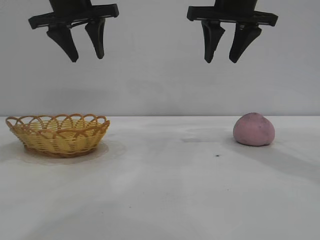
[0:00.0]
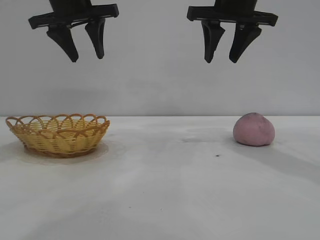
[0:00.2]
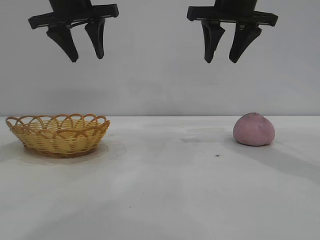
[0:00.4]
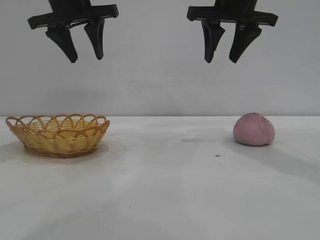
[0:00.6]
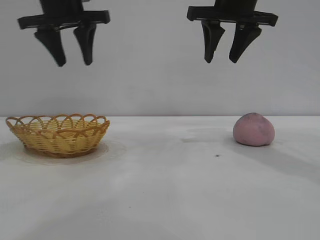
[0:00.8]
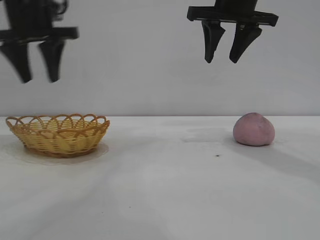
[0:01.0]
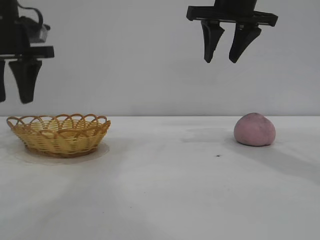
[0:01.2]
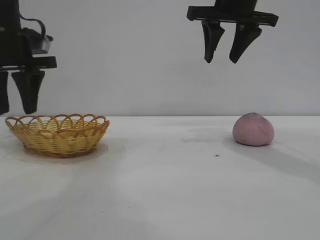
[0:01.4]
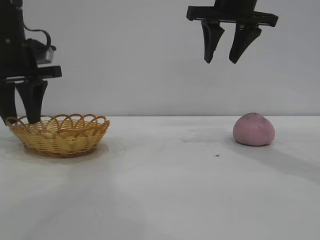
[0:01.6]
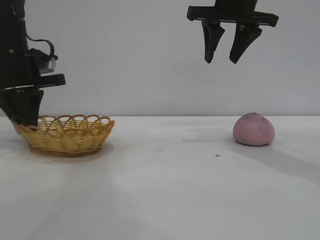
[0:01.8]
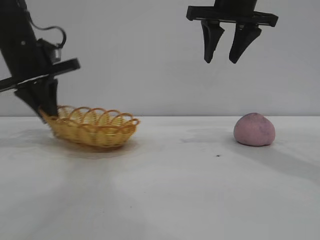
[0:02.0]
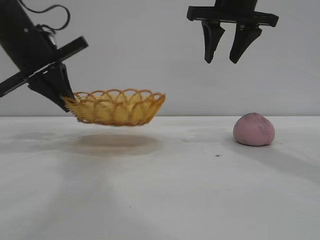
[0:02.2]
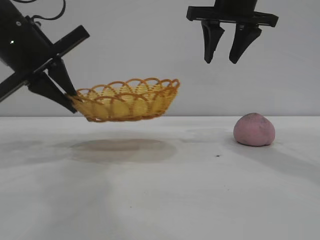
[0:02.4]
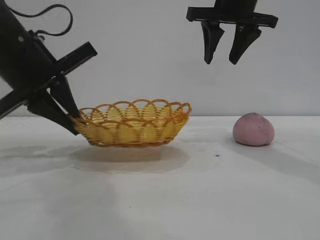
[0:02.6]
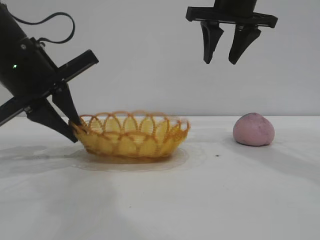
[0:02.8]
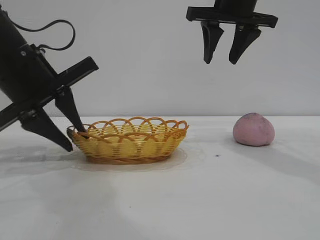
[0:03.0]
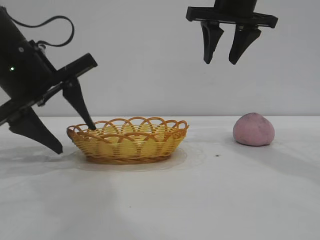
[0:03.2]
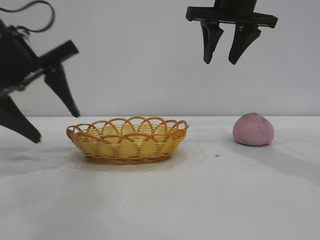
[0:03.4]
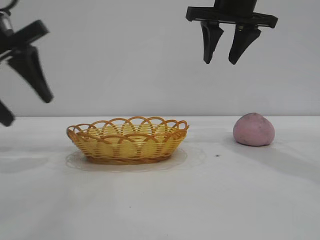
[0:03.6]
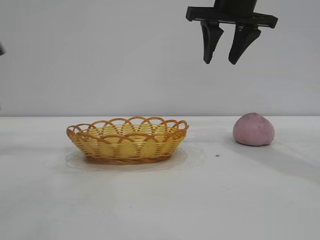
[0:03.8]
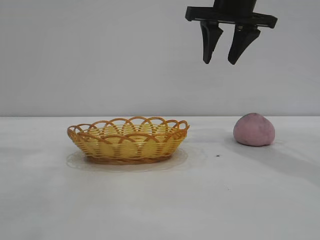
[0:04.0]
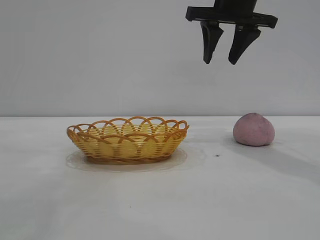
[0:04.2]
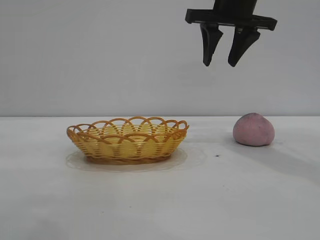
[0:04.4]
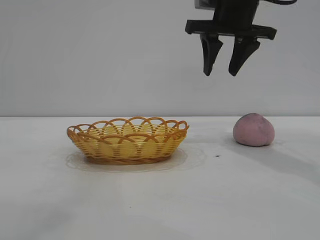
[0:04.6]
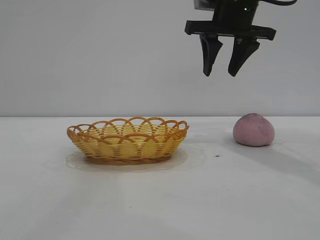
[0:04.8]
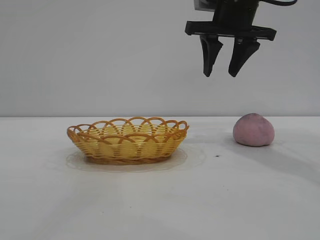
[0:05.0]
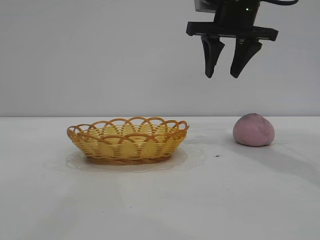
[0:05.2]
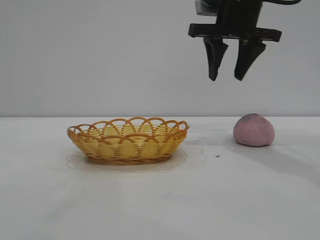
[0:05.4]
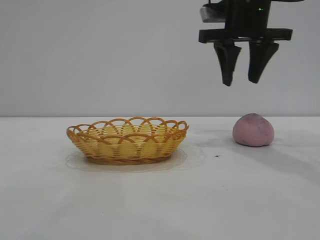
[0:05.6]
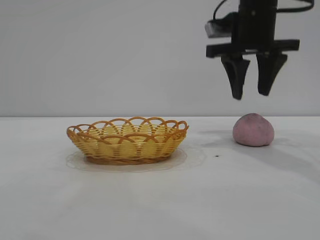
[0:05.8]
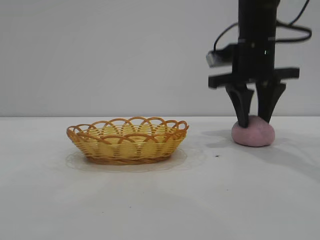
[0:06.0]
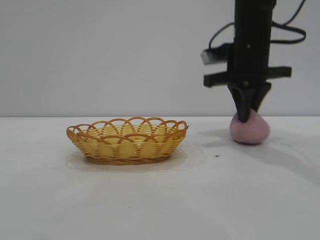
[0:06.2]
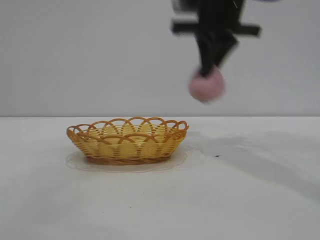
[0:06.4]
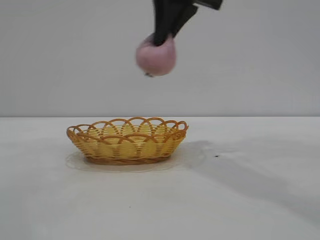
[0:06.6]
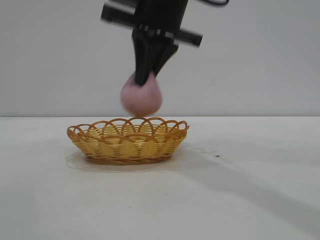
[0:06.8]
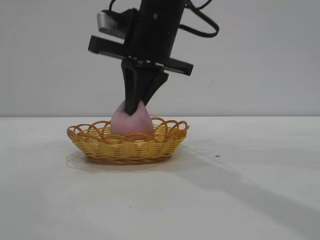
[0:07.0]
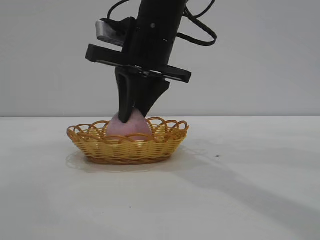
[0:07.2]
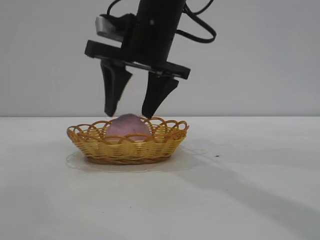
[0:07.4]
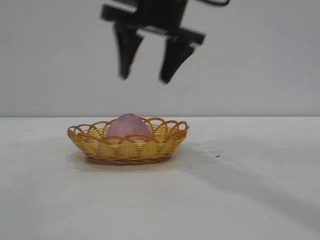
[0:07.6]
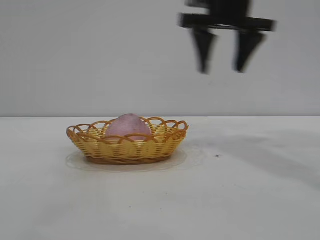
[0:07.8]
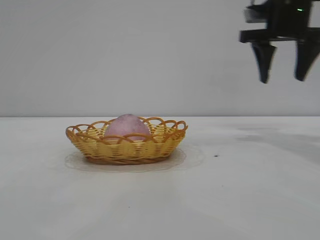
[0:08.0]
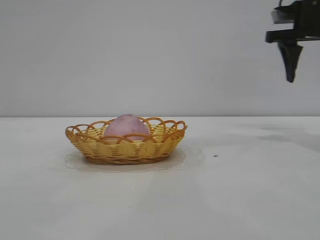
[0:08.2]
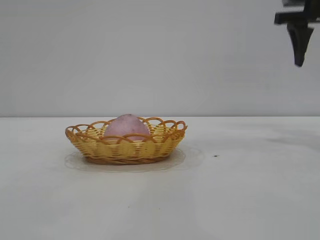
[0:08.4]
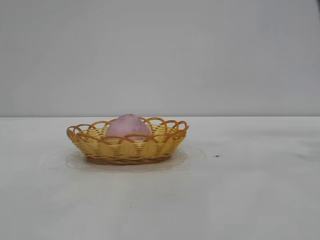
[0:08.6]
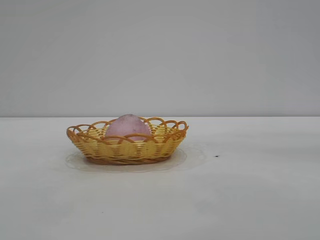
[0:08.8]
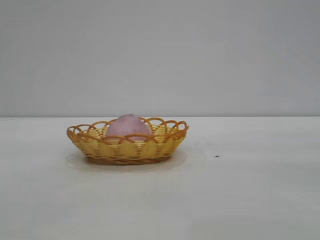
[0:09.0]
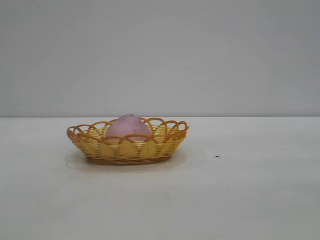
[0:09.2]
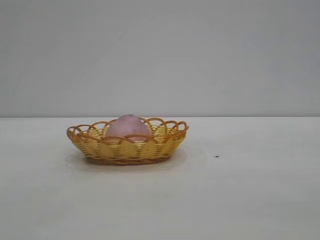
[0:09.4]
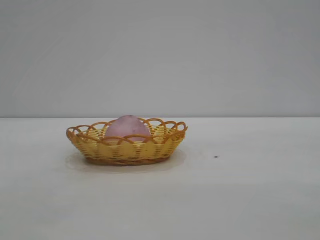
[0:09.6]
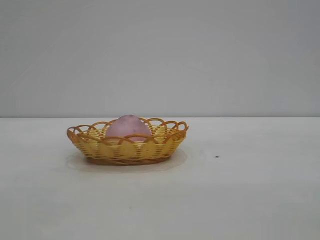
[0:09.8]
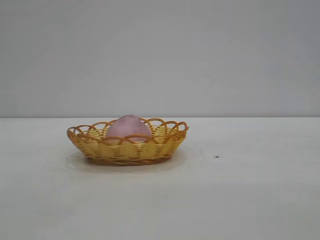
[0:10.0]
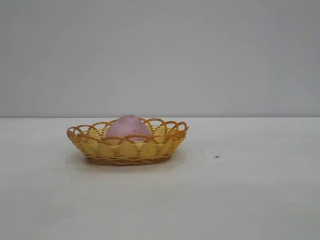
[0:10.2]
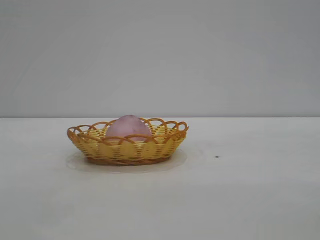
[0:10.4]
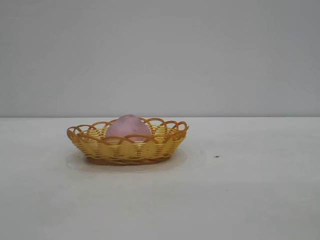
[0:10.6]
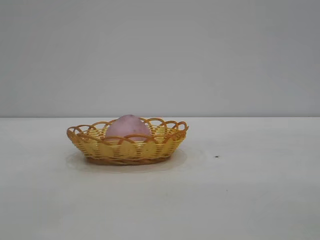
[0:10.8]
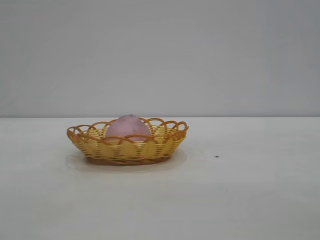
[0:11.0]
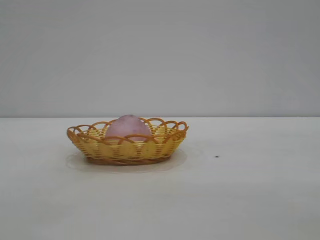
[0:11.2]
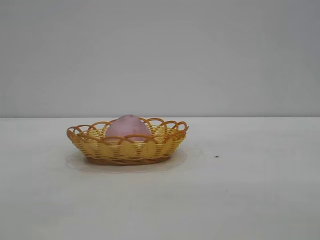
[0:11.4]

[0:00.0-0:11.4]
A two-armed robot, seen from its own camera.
Task of the whole recording: pick up the peach and put it into the basket.
Step, 0:00.0 to 0:03.4: Move the basket to the center of view.
Step, 0:03.6 to 0:06.2: Pick up the peach.
Step, 0:06.4 to 0:07.4: place the peach into the basket.

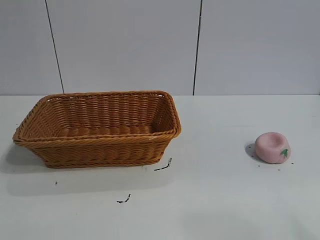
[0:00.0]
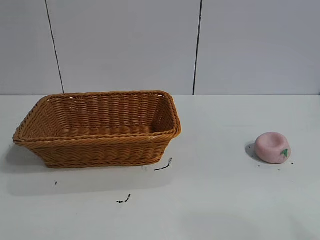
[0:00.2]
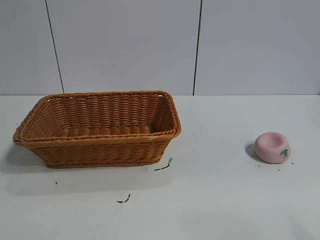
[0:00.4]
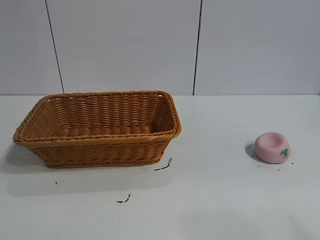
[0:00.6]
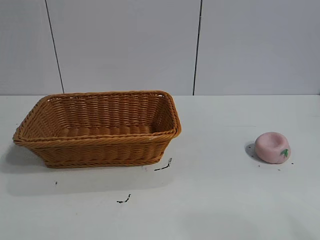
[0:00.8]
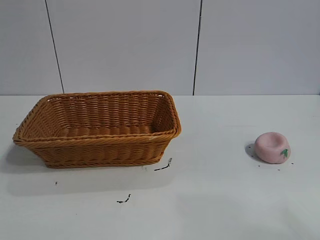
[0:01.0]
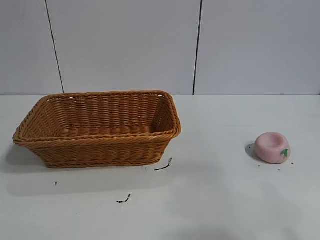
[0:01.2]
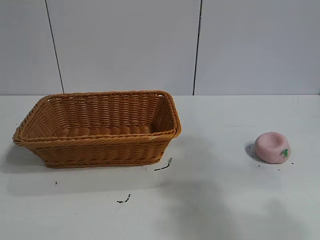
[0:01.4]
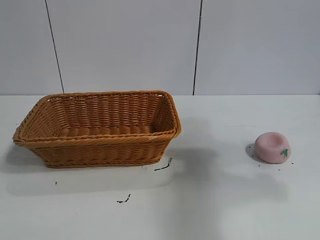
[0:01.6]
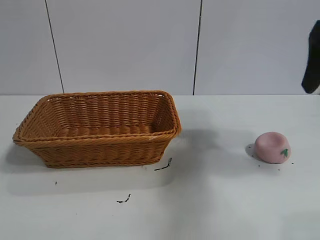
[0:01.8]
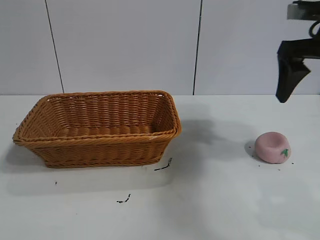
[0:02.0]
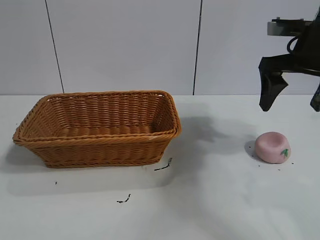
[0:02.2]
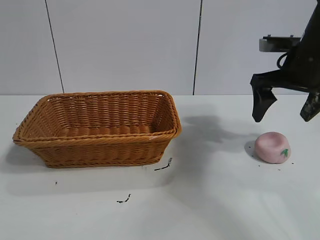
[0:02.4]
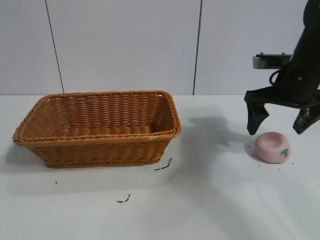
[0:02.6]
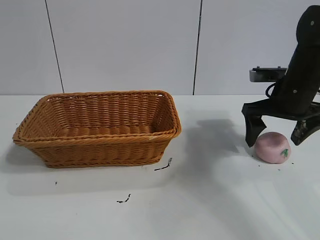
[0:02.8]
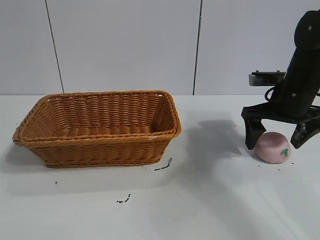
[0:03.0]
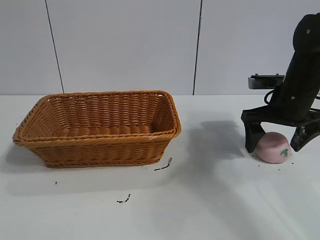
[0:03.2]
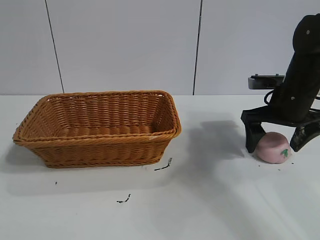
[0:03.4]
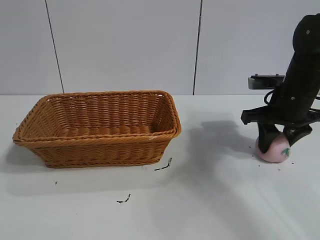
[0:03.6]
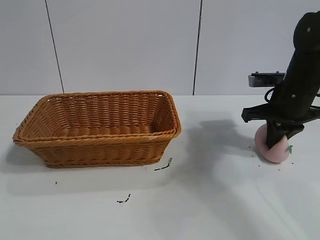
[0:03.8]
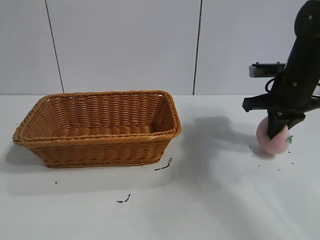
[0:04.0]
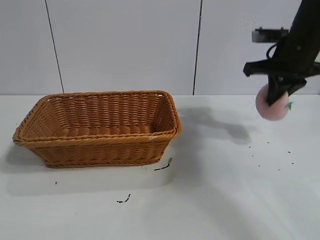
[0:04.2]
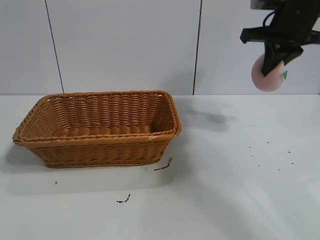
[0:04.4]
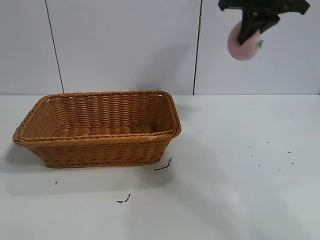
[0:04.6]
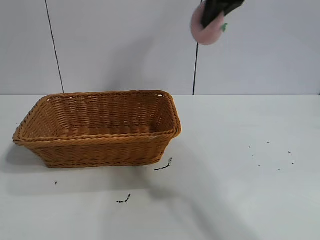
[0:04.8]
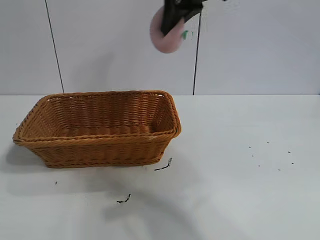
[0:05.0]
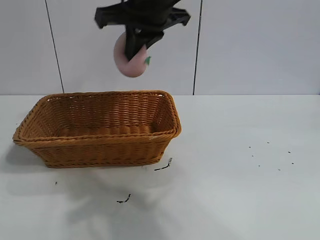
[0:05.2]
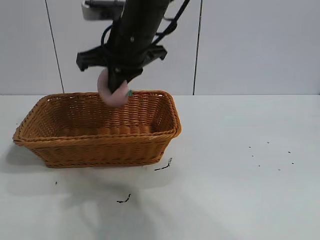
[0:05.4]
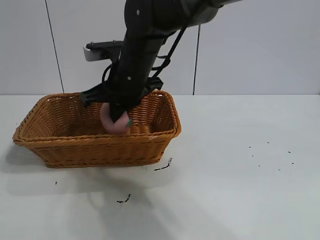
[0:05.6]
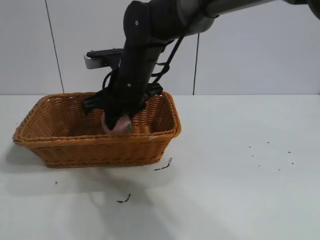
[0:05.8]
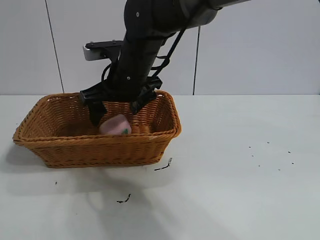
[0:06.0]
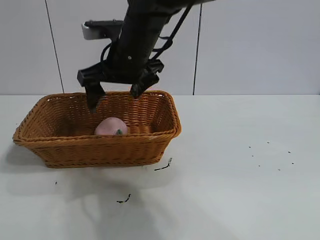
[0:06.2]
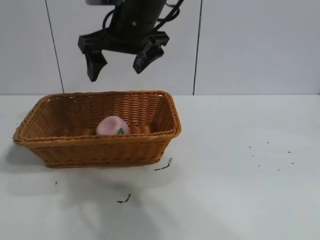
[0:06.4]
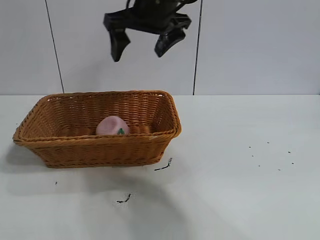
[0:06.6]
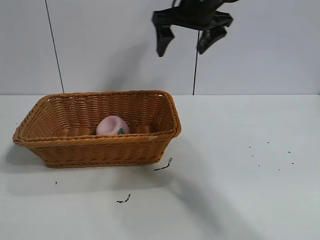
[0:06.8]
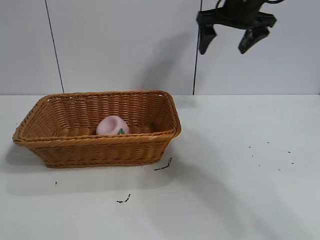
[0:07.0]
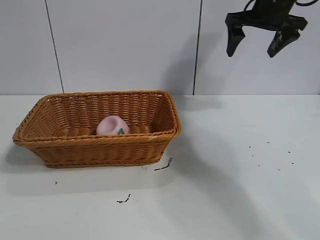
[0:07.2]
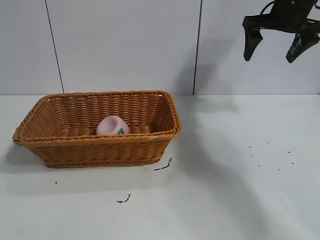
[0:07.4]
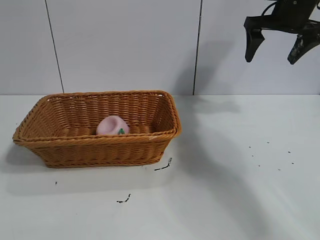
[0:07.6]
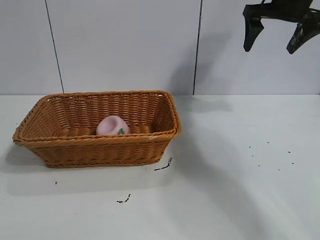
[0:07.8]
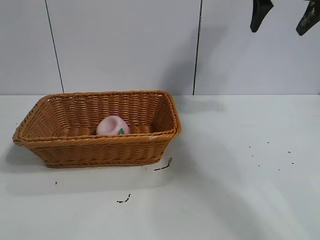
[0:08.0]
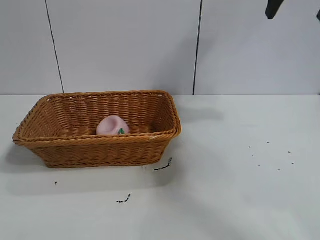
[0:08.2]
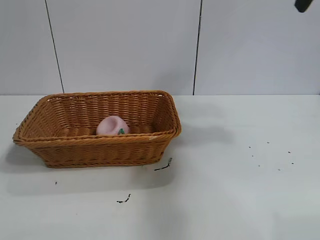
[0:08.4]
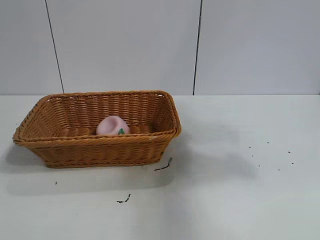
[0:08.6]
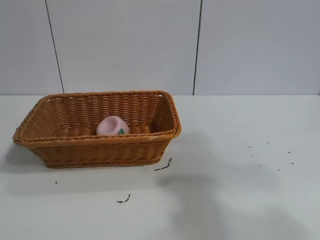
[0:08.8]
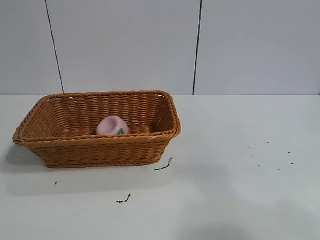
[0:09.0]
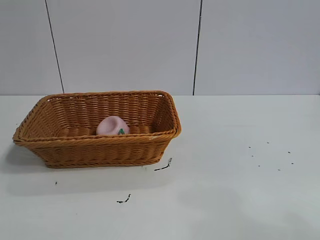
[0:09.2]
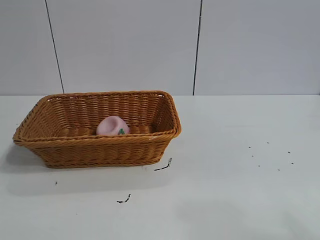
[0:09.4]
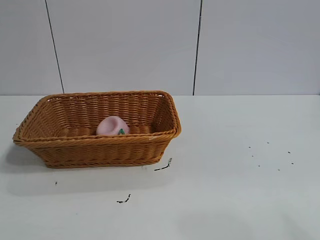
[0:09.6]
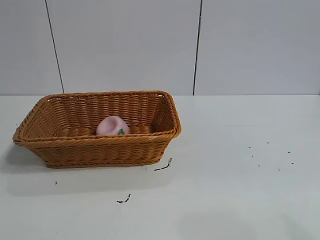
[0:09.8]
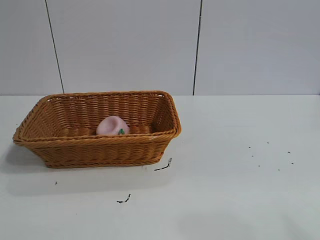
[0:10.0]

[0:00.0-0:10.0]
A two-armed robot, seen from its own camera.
Task of the whole recording: pick up the peach and put it into the basket.
Step, 0:01.0 to 0:03.8: Grasp the peach with right gripper.
Step, 0:04.0 to 0:06.0: Place the peach in the basket with right gripper.

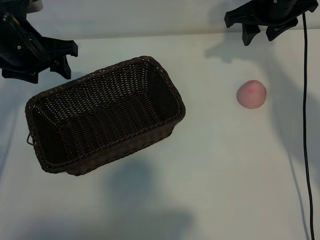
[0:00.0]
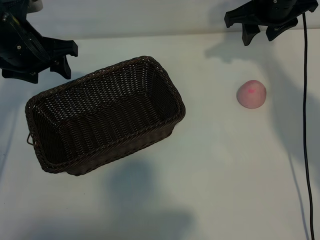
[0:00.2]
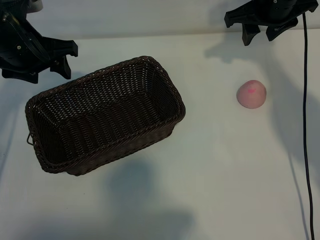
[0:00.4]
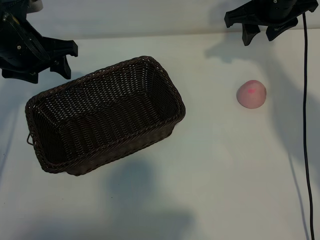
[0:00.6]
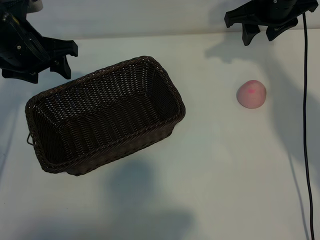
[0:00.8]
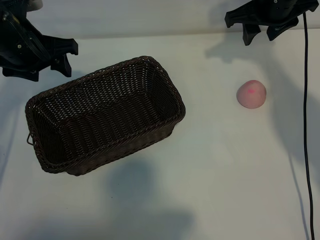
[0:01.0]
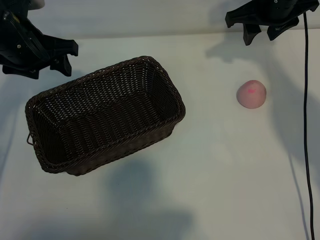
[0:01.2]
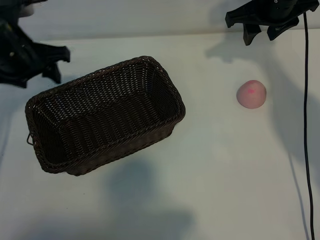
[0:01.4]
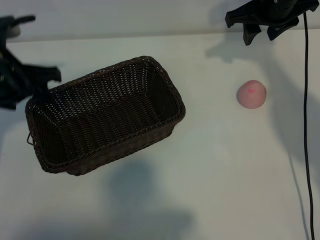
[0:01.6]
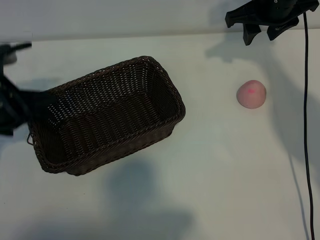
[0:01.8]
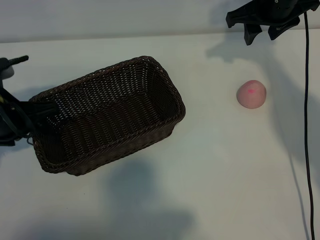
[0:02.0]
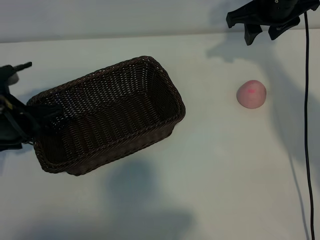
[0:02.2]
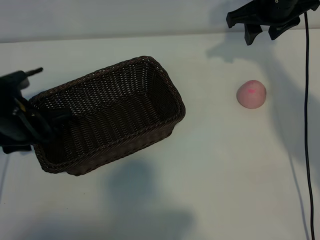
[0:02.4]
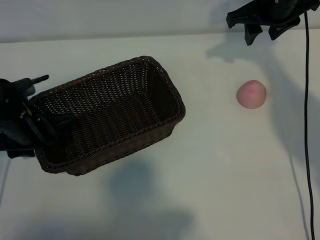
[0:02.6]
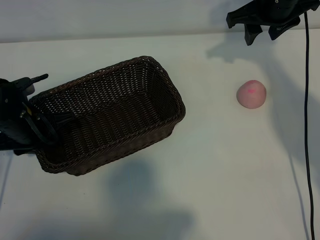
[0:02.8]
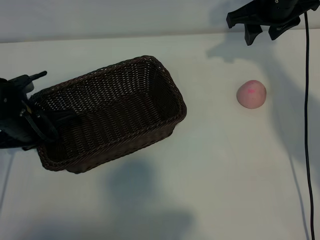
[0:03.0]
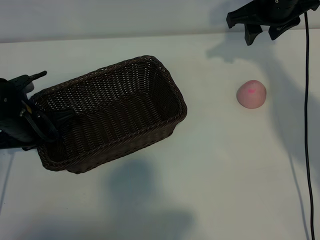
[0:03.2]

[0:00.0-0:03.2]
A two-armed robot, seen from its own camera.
Task of the whole recording: pick up the peach and put it into the basket.
Step, 0:01.0 to 0:03.0: Grasp the basket with left gripper.
